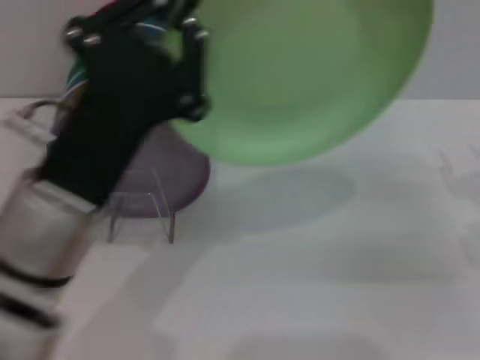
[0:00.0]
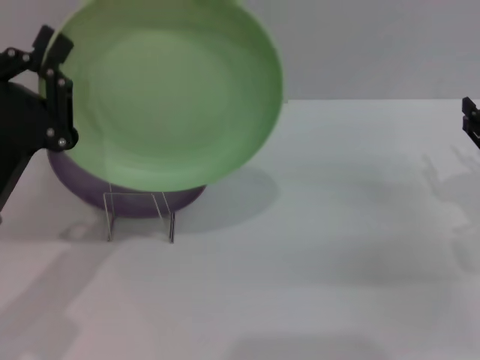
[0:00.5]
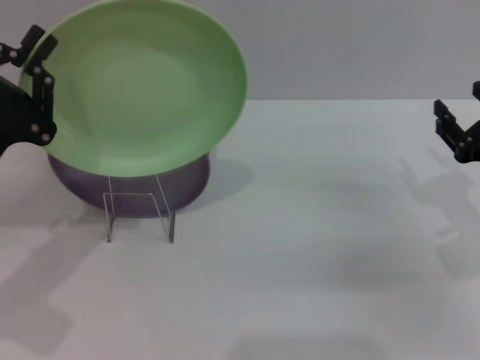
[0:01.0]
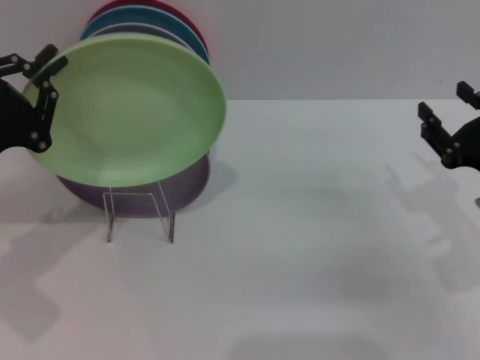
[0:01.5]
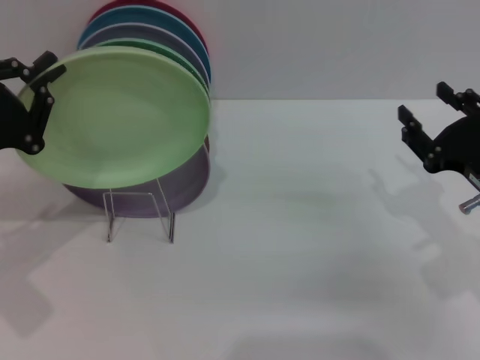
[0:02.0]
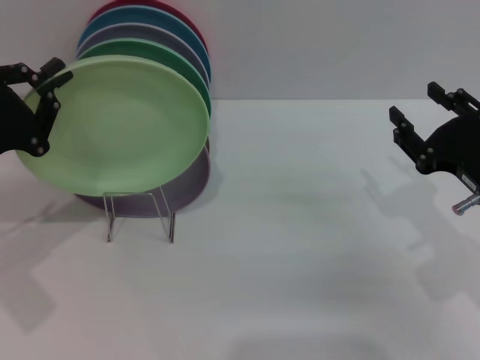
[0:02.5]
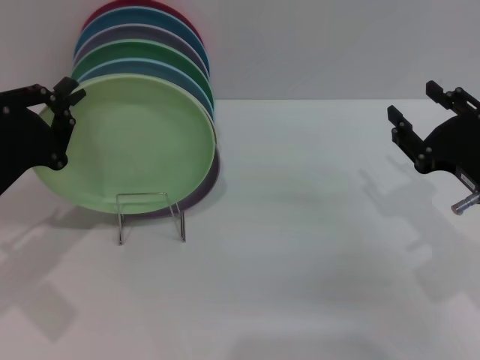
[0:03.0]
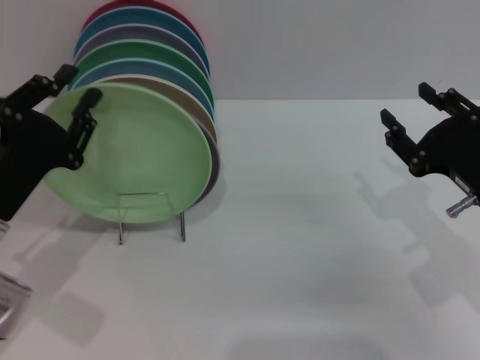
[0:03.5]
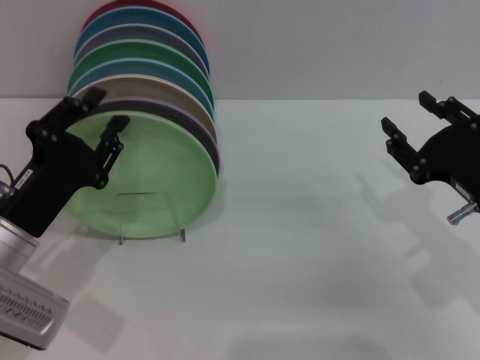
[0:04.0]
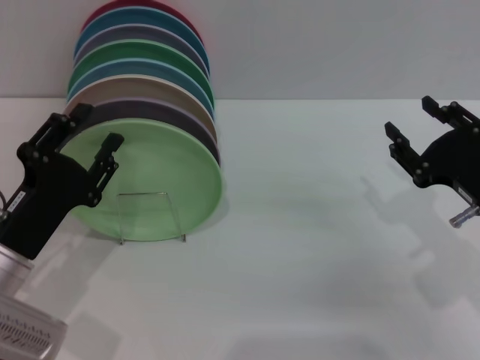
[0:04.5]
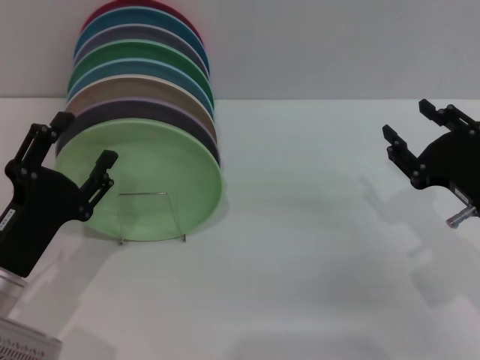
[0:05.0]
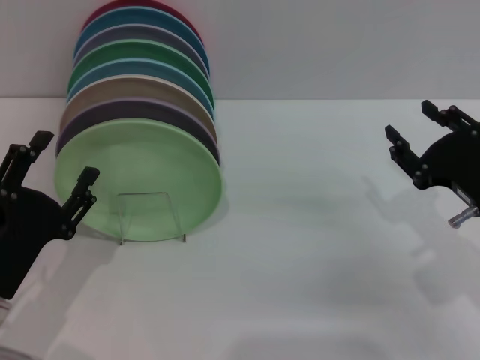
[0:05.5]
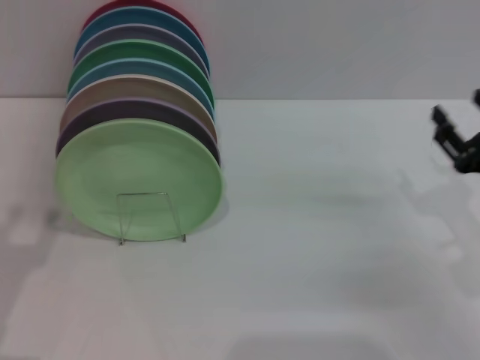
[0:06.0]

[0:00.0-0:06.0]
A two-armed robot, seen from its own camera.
Task of the whole recording: Grip the plate with one hand, pass it to the other, then set it on the shelf.
Step, 0:00.0 to 0:04.5: Place the plate on the shelf with the left gripper.
0:00.0 to 0:02.0: The right gripper shifts about 5 cm to the left; the left gripper is displaced to the left and forward by some 20 cm.
0:02.0 to 0:04.0: The left gripper moves to the right and downward, about 10 cm, and opens.
0:04.0 to 0:06.0: The left gripper travels backward and to the left by some 10 cm, and opens its fingers.
